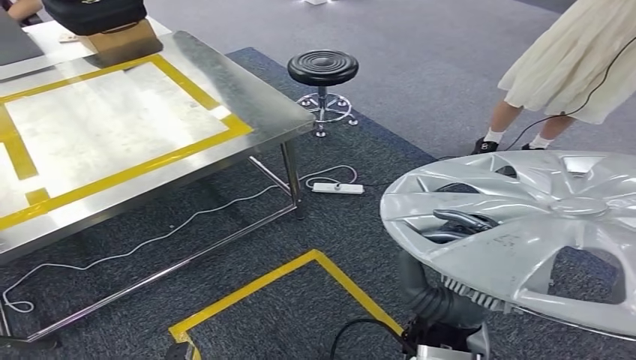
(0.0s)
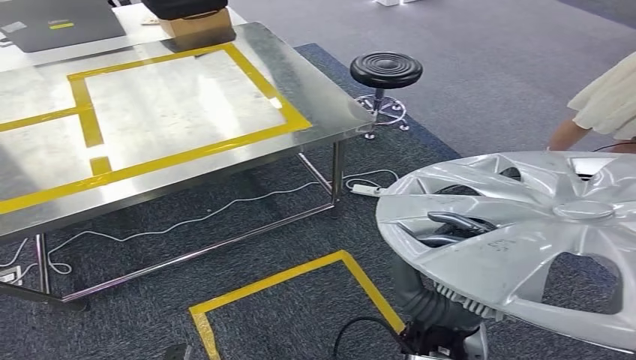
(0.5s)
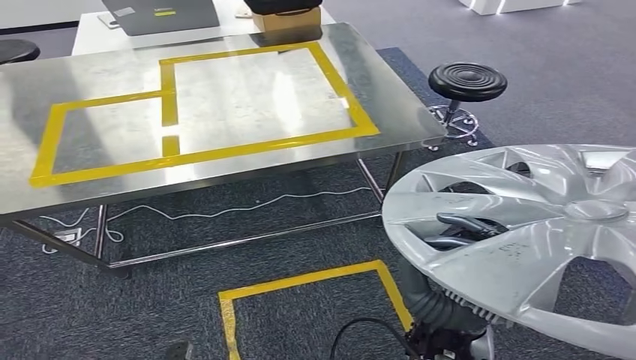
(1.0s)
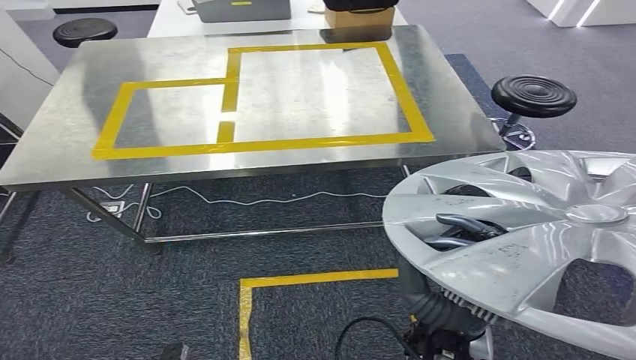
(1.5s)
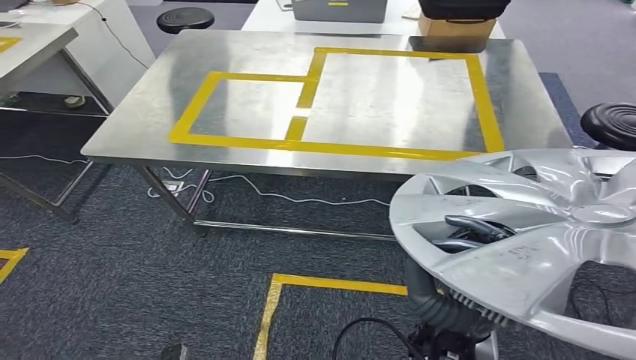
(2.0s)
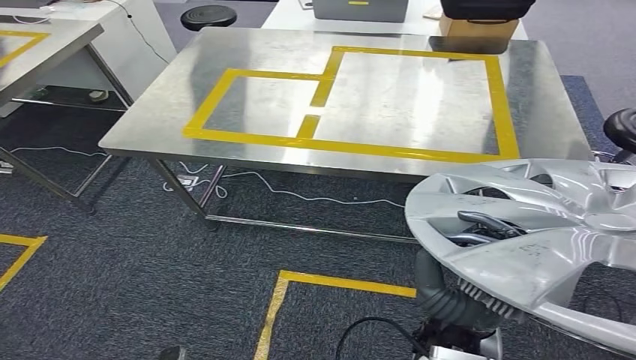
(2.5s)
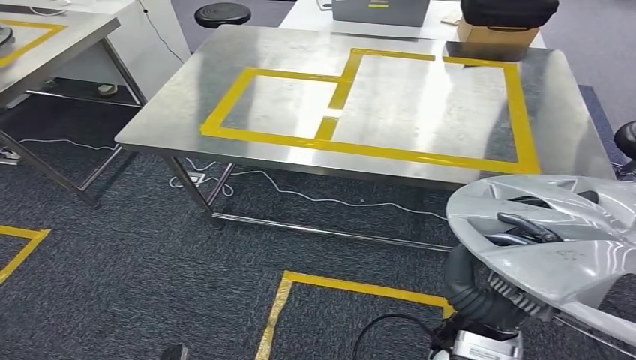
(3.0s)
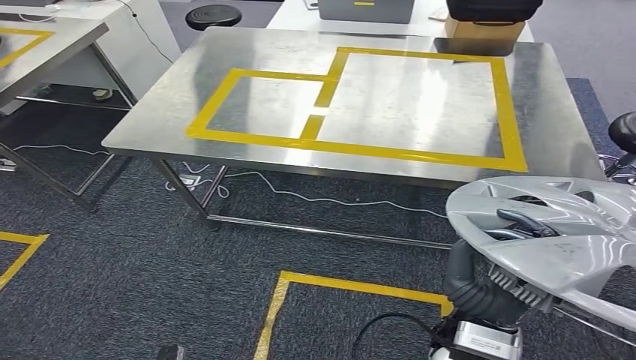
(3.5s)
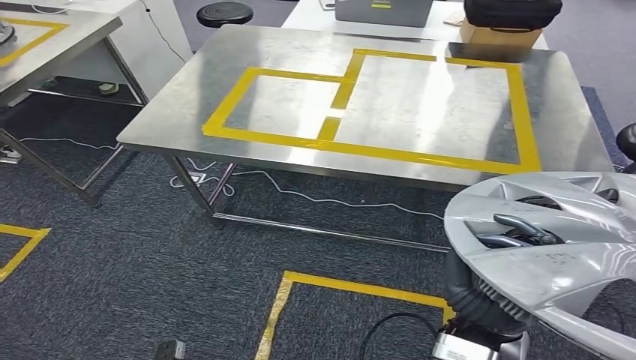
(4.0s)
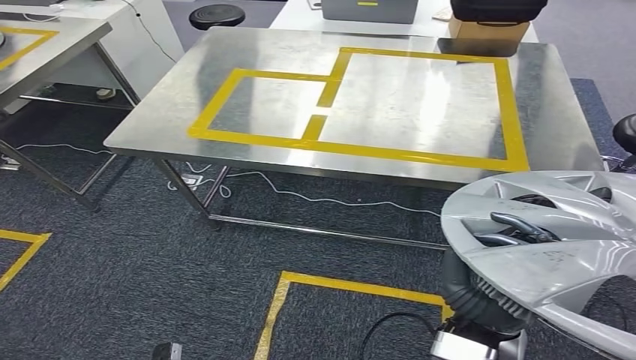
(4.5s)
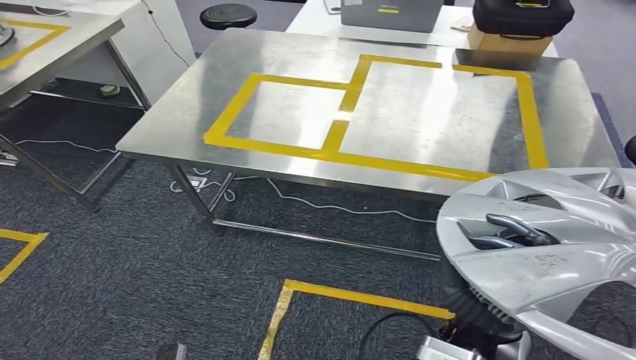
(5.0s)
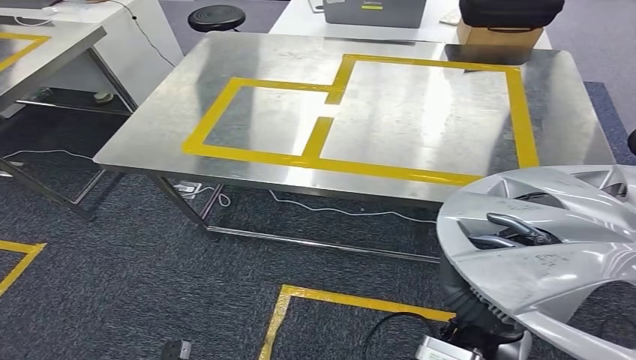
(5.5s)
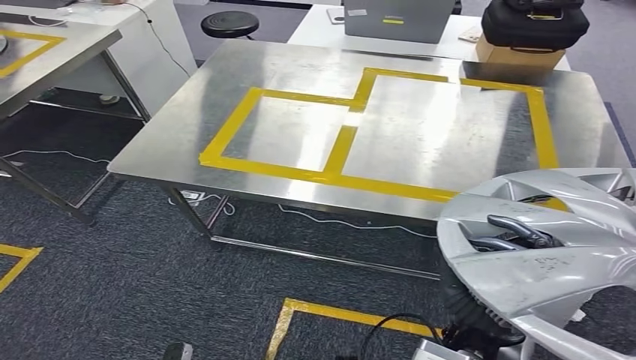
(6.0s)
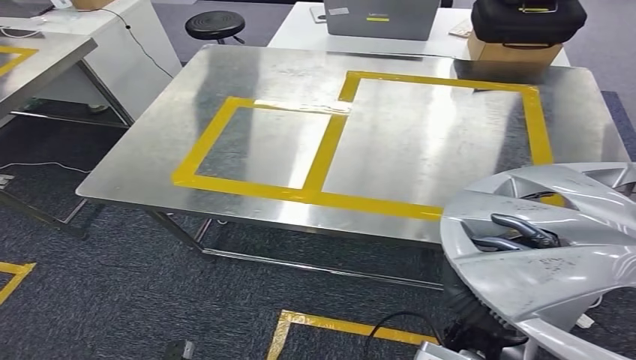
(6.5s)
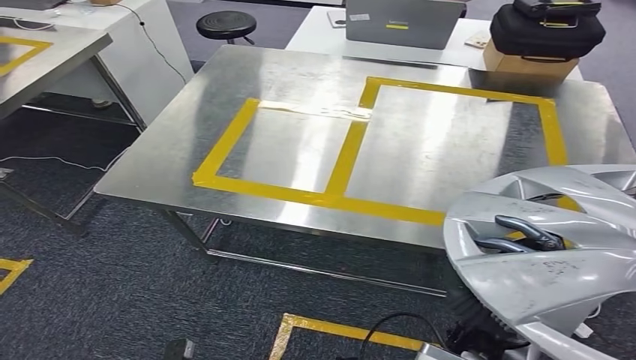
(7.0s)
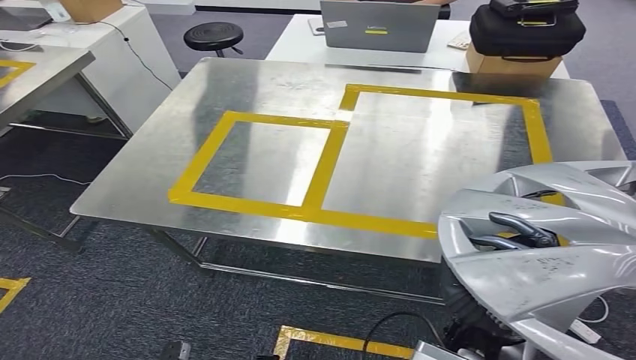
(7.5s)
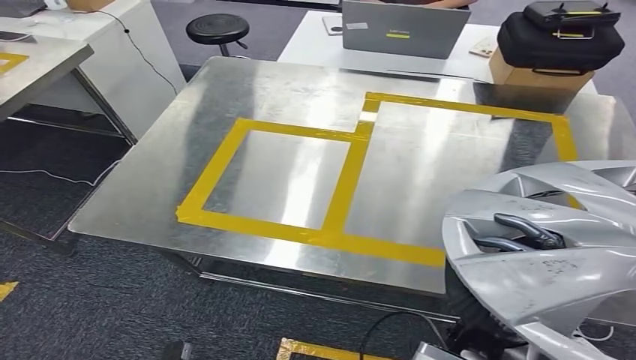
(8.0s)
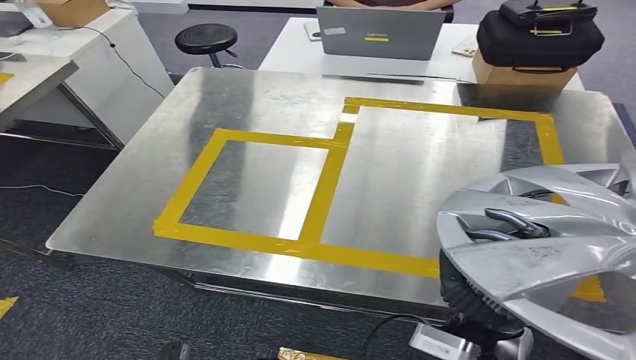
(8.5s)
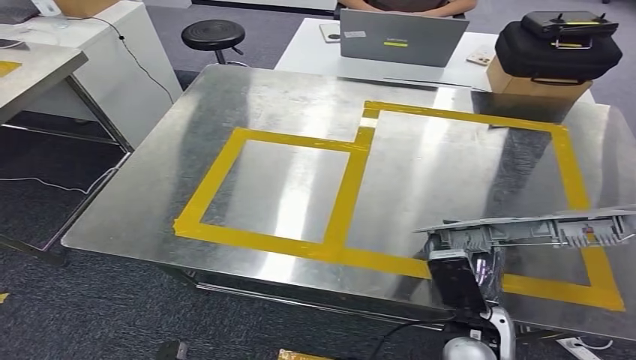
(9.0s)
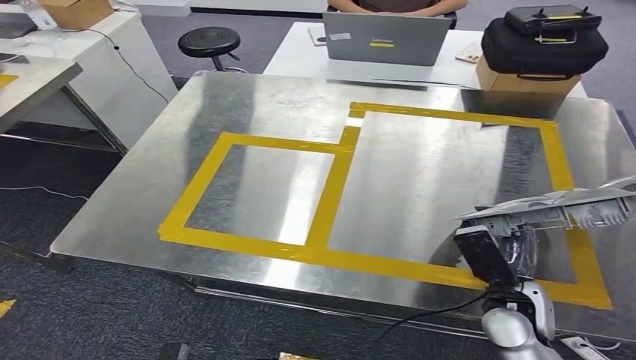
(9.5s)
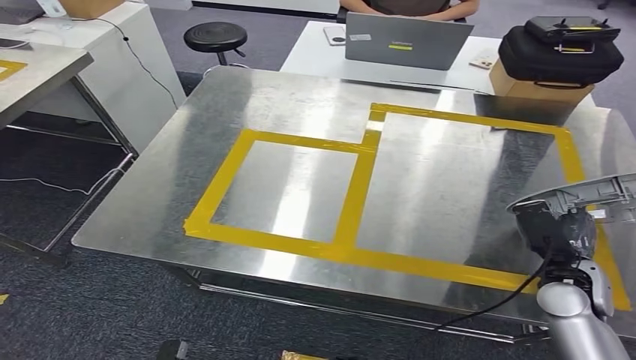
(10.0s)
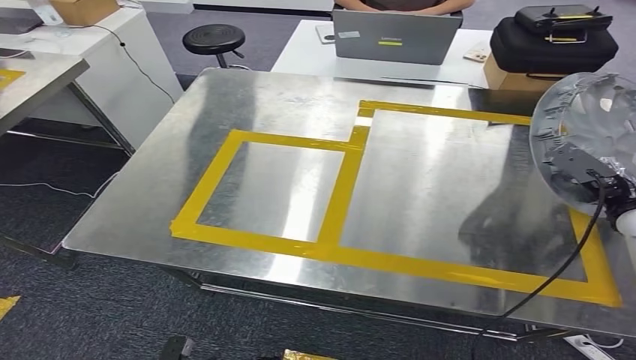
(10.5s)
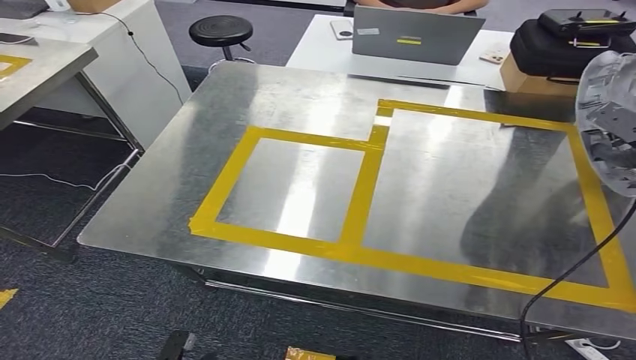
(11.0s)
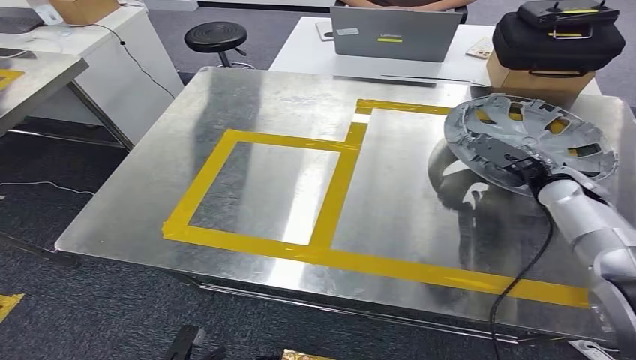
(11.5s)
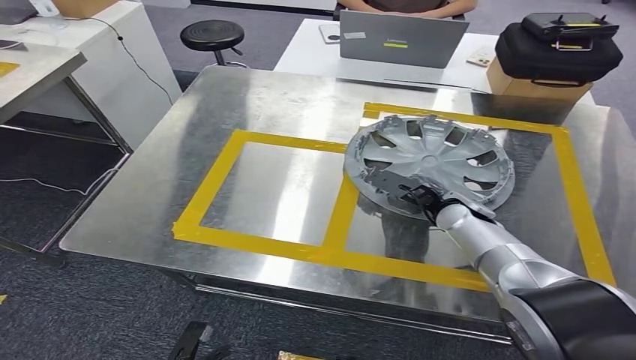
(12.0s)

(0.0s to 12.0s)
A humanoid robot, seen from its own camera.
Step, 0.0s - 5.0s: Move the small parts to the workbench.

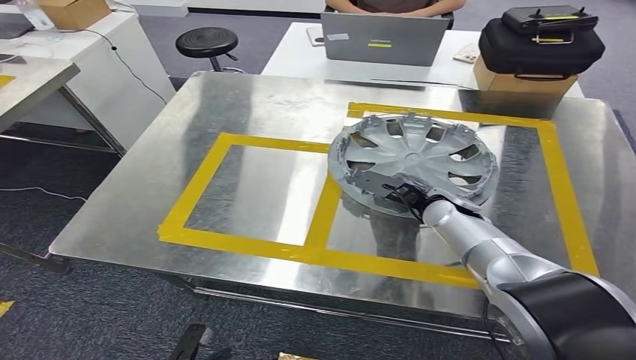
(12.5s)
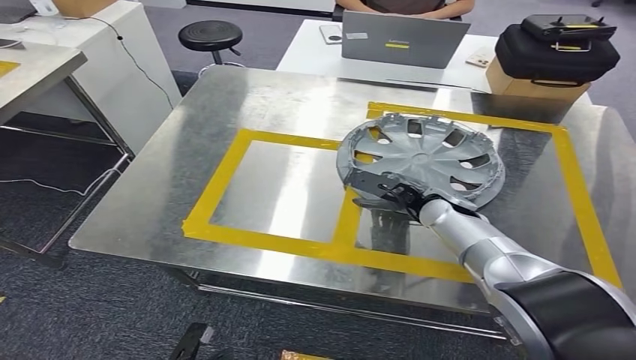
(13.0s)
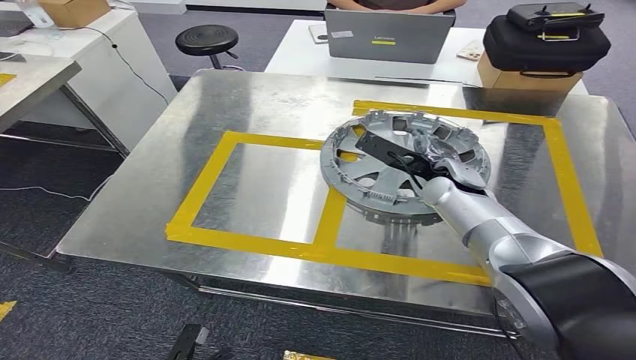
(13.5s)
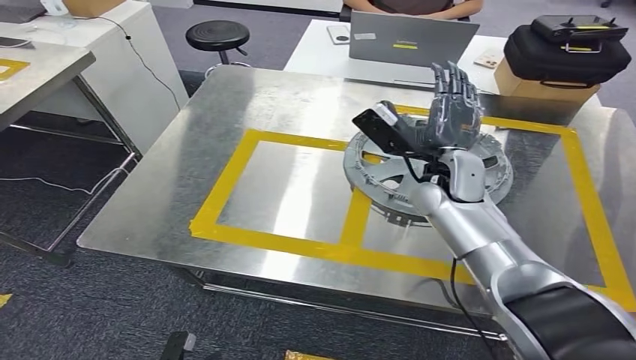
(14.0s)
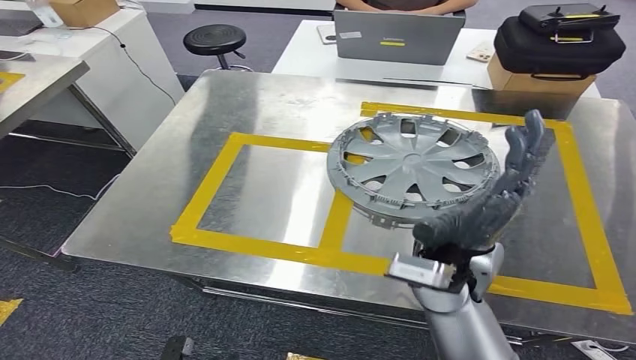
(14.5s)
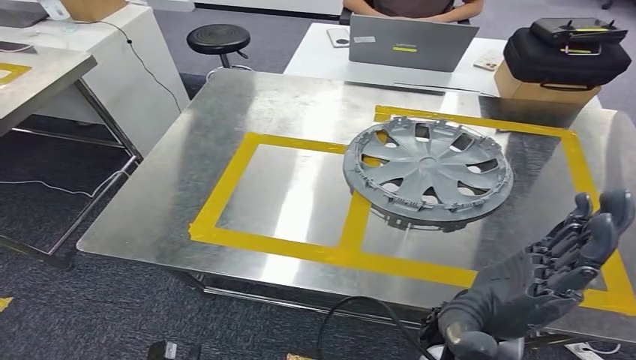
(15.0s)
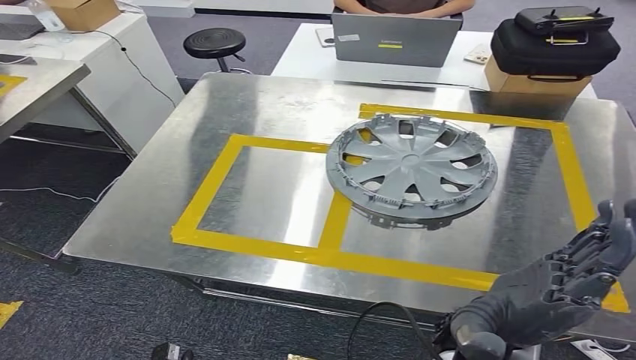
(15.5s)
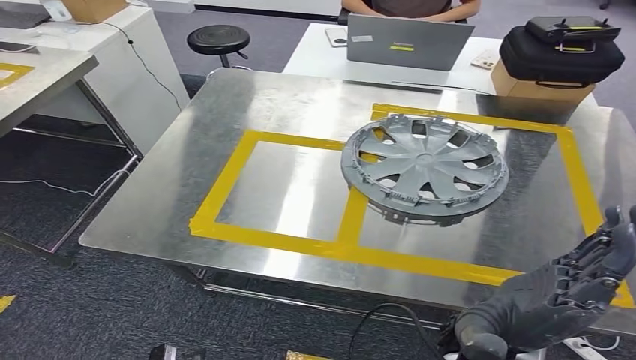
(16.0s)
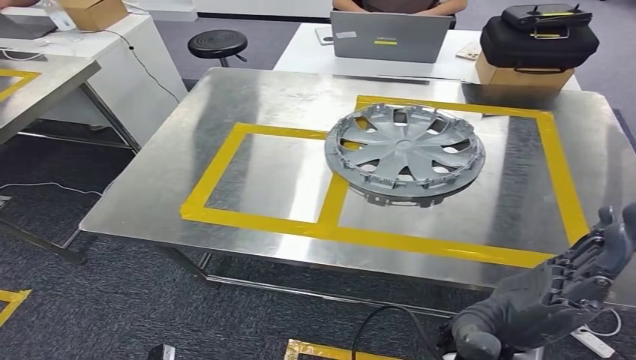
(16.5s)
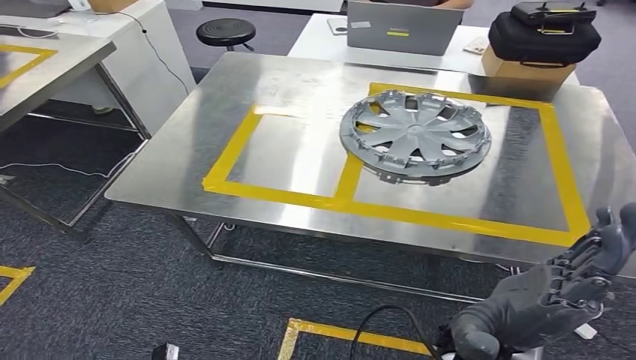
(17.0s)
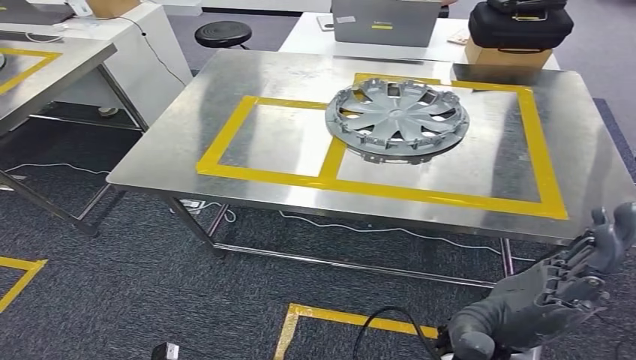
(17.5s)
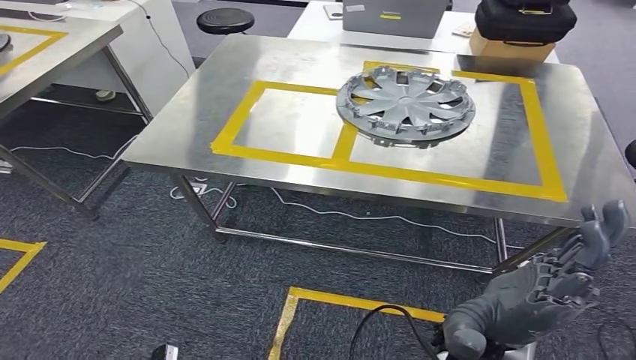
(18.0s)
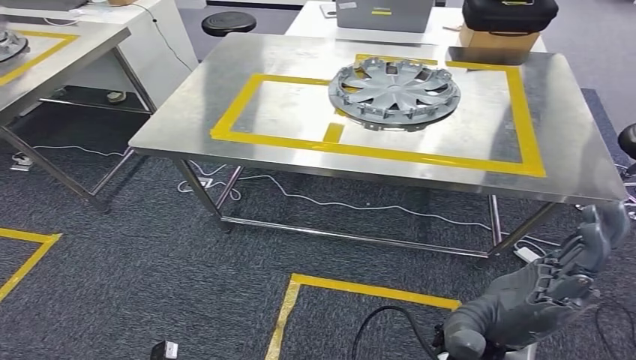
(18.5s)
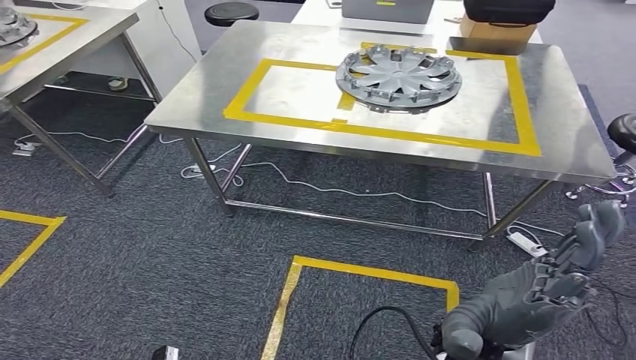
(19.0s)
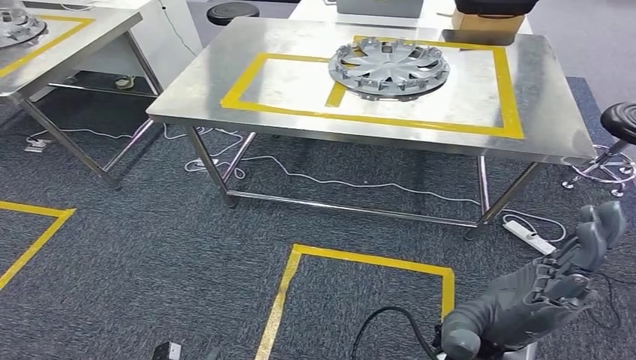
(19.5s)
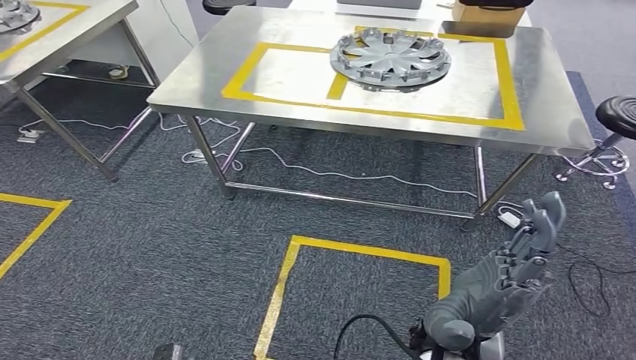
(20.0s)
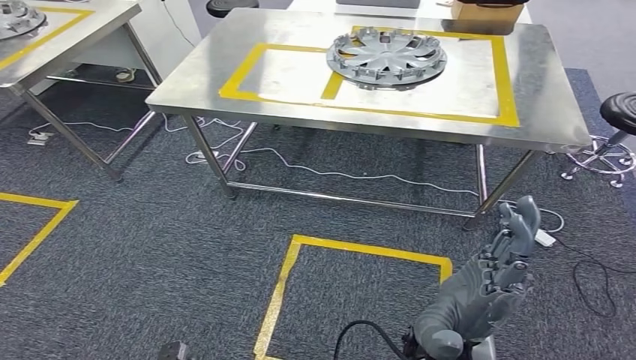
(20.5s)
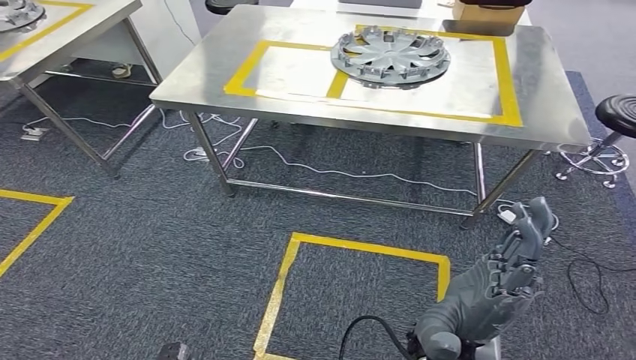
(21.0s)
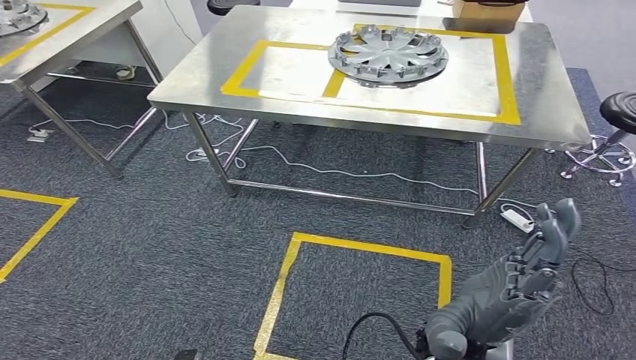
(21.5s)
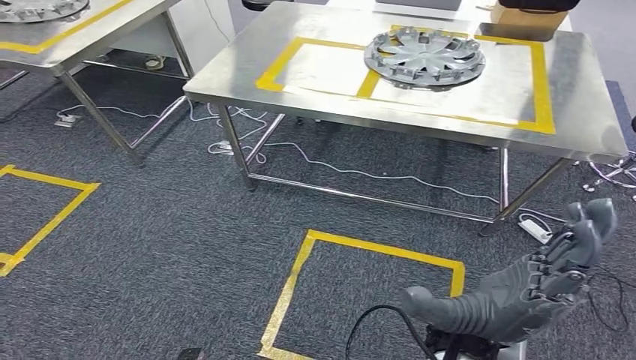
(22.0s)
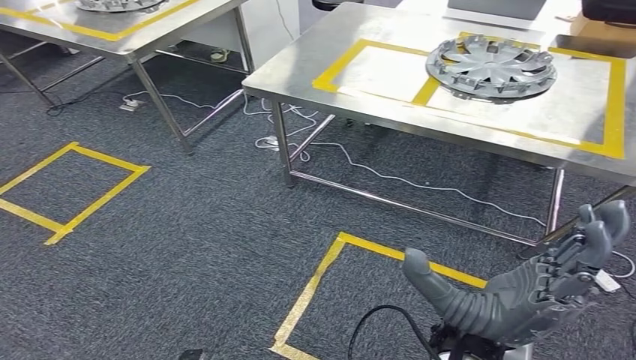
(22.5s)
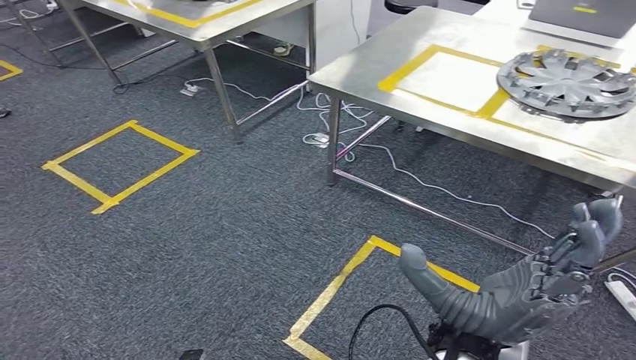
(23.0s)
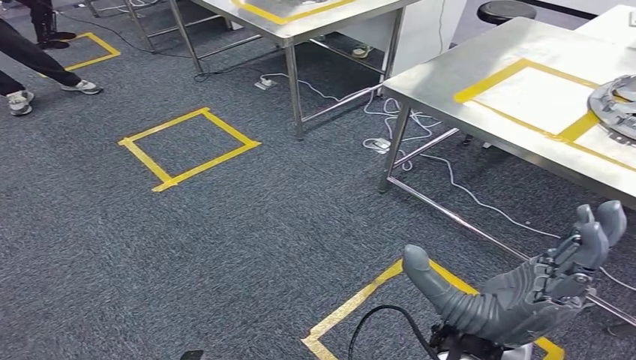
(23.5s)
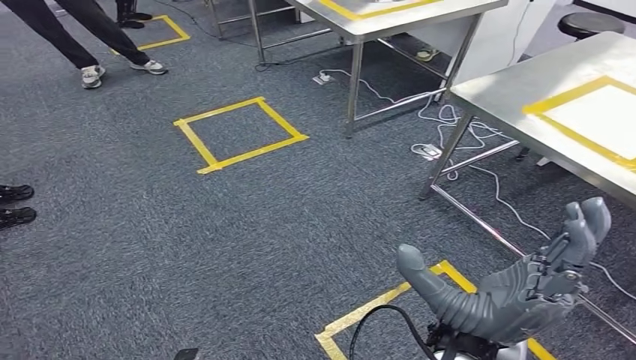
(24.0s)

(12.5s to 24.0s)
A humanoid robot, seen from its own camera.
Step, 12.5s - 15.5s: Insert the small parts into the corresponding holes on the workbench.
